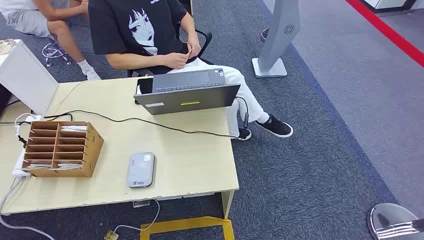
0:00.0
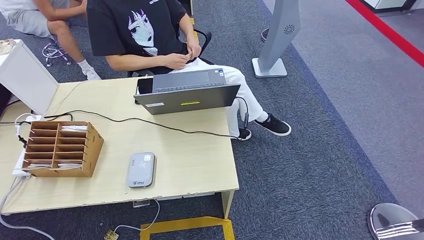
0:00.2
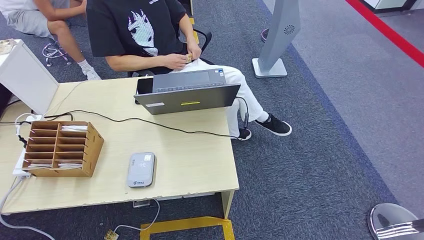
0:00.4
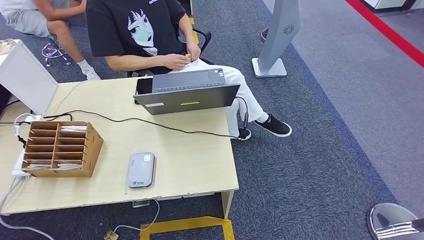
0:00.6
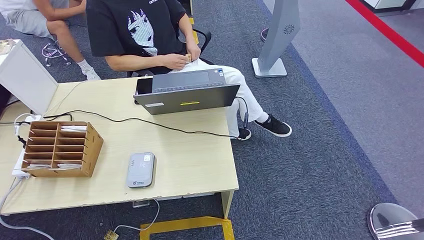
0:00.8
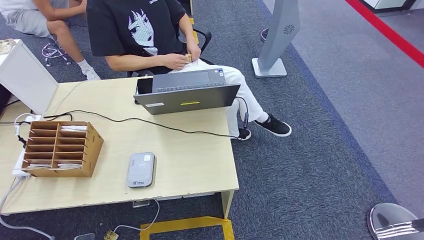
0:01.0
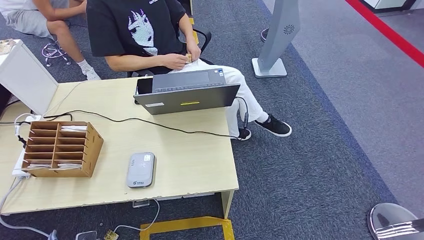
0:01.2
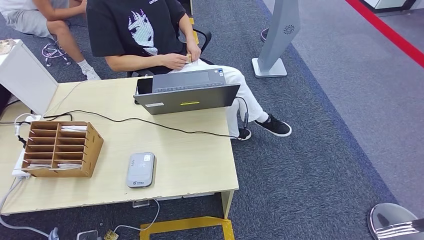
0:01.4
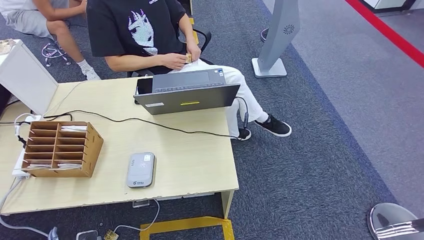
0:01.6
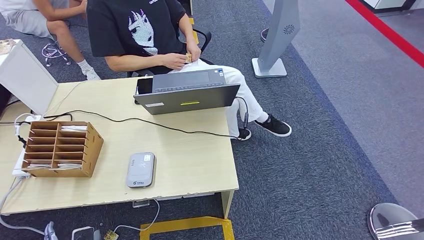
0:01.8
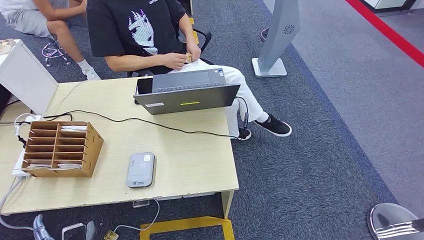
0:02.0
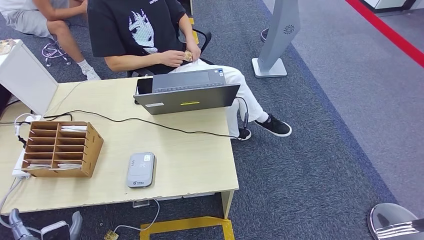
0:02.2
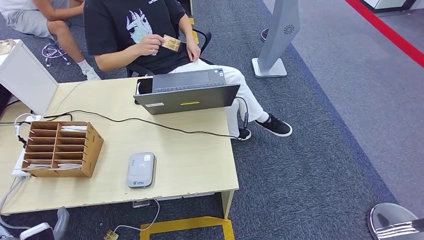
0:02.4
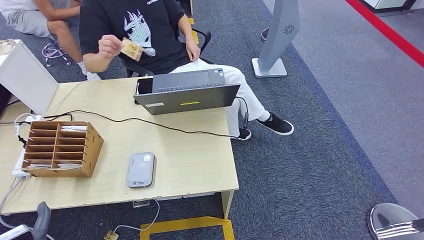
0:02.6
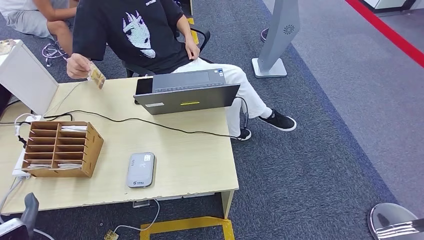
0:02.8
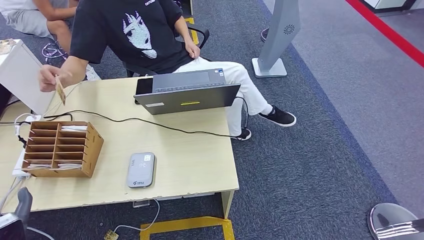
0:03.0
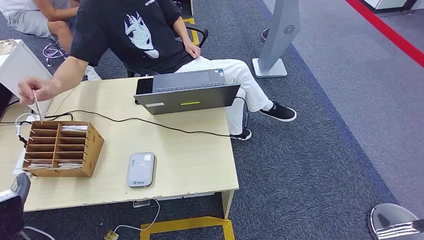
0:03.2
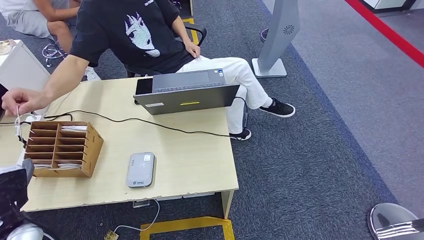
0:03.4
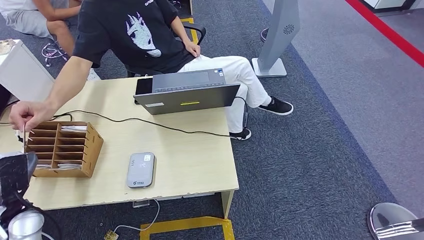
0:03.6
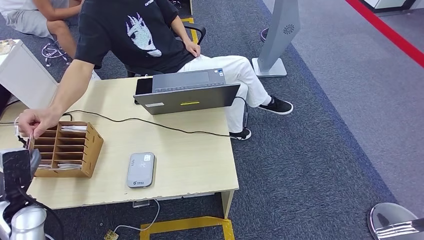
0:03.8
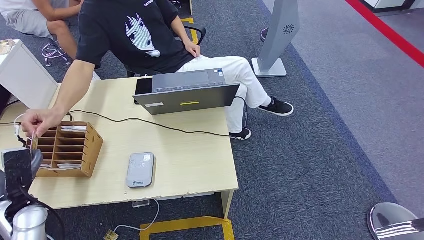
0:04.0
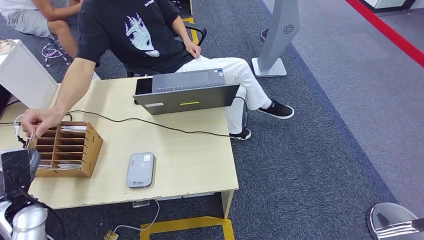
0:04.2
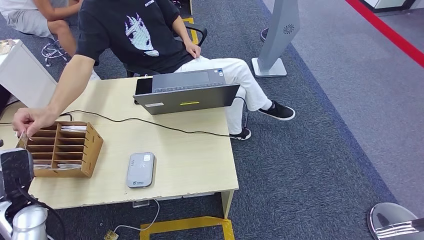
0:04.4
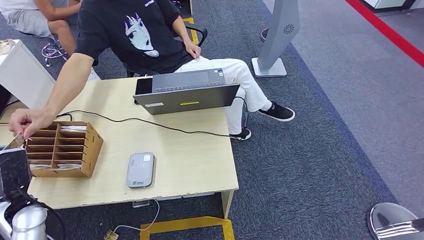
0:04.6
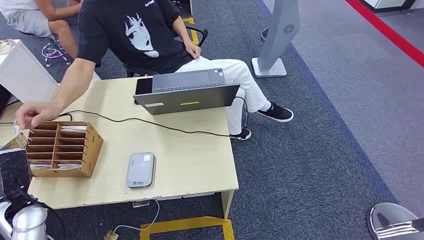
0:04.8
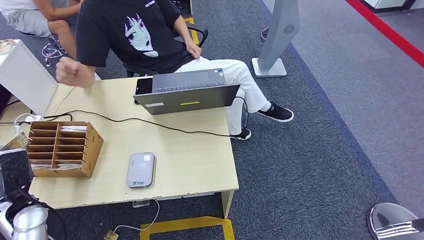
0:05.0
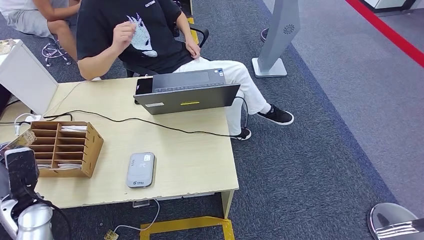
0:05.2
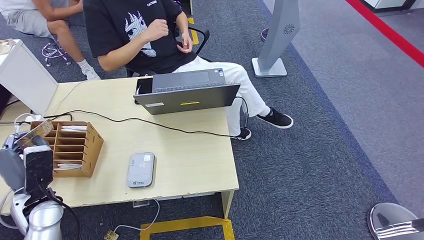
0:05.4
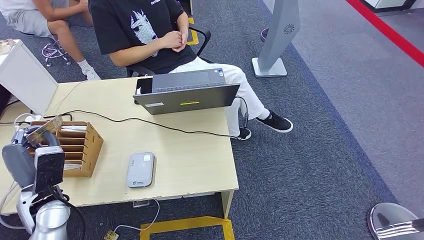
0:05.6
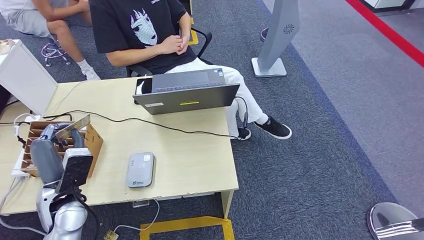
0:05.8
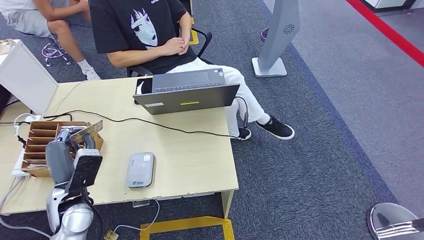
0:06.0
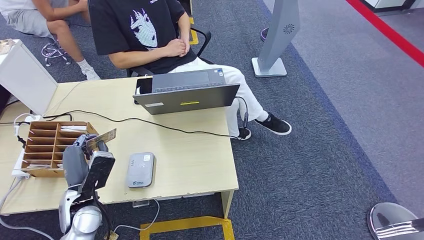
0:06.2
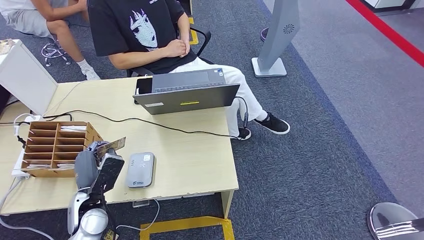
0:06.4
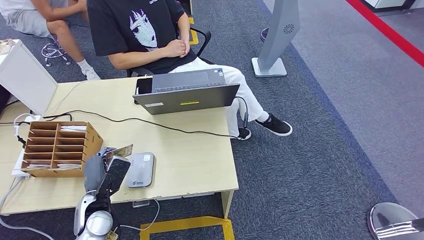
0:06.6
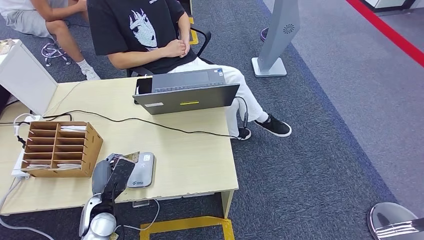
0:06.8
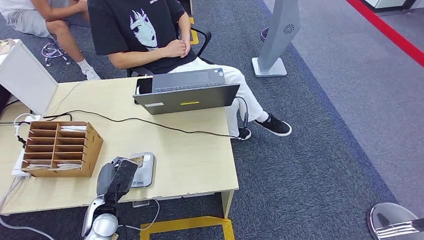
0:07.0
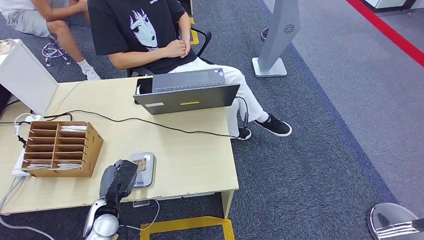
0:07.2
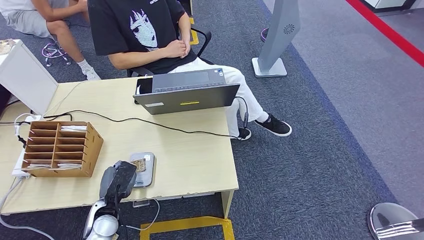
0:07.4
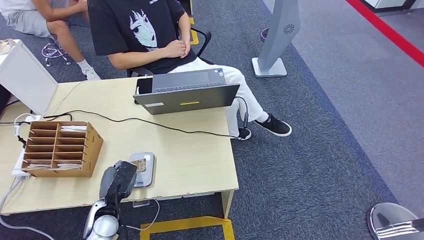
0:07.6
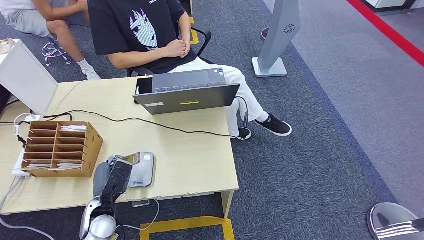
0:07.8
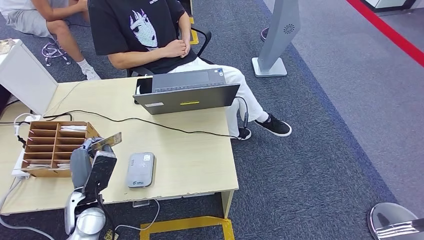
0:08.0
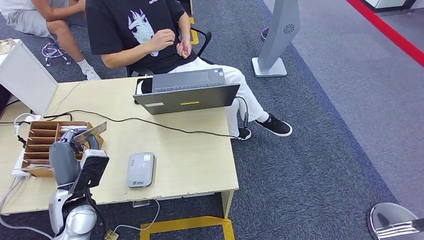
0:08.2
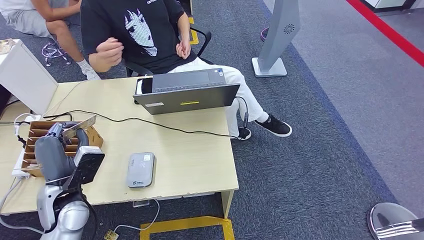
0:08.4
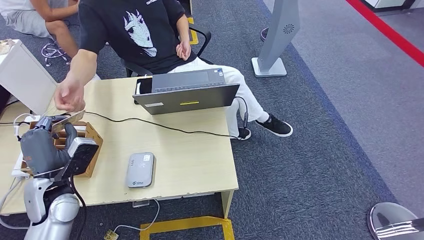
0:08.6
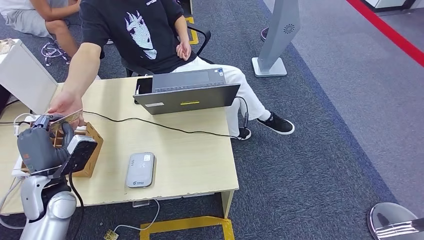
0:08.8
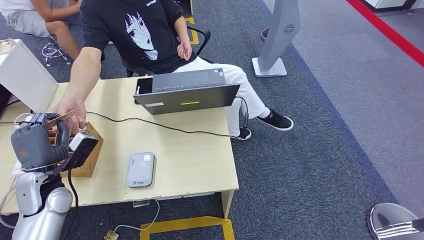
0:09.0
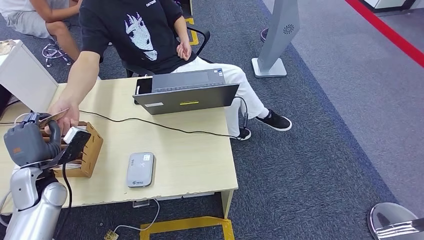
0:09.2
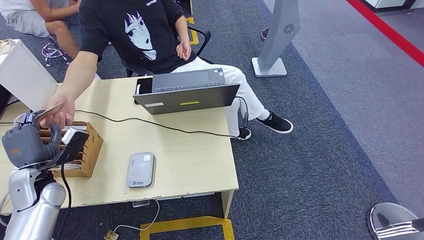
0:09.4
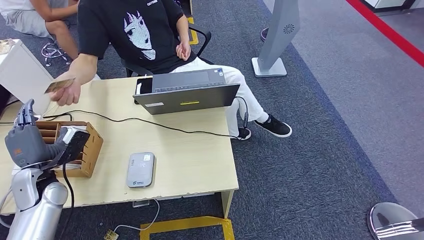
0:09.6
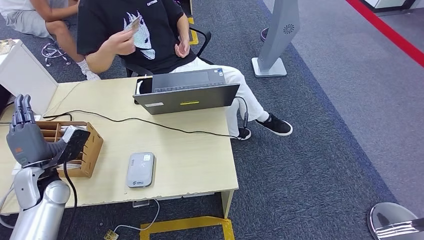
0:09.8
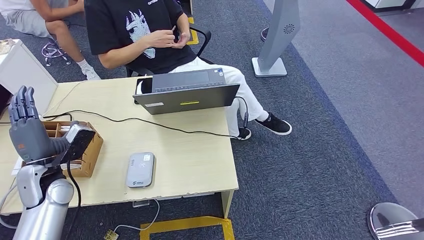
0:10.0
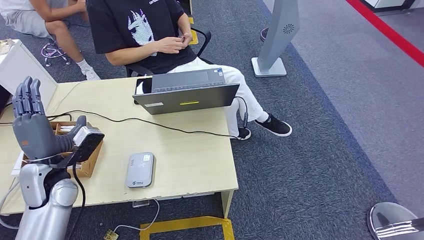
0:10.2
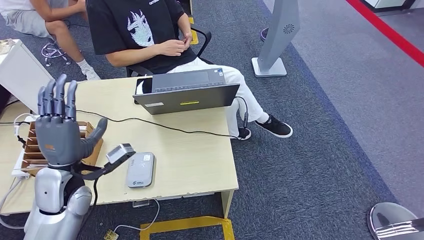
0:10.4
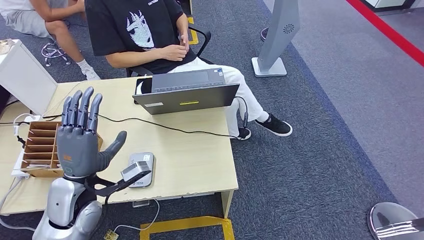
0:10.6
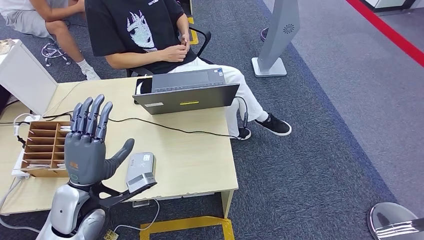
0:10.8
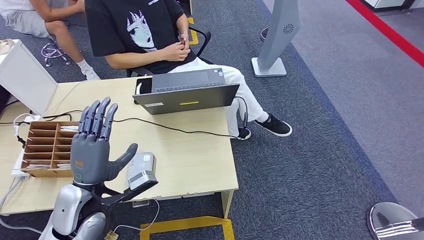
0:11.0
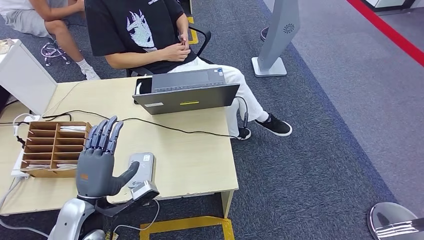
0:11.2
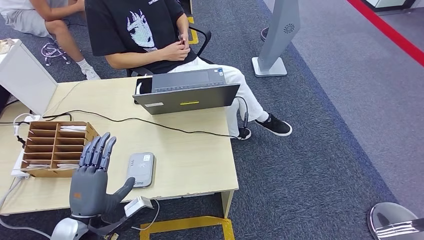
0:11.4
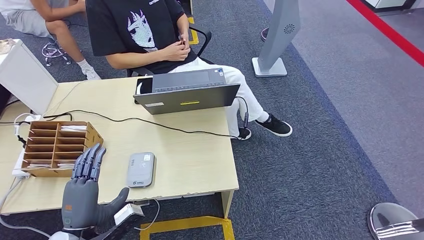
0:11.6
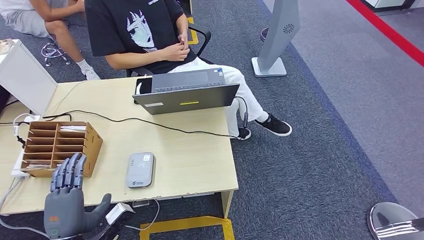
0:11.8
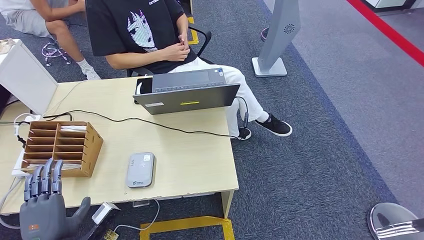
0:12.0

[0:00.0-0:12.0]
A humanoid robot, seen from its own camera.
Step, 0:00.0 to 0:05.8: Take the ID card from the person's hand.
Step, 0:06.0 to 0:07.0: Place the ID card on the card reader.
Step, 0:07.2 to 0:09.6: Hand the ID card to the person.
0:01.6 to 0:03.0: The left hand is displaced upward, forward and to the left by some 20 cm.
0:03.0 to 0:04.4: The left hand shifts approximately 15 cm forward and to the left.
0:04.4 to 0:06.0: The left hand is displaced to the right by approximately 15 cm.
0:06.0 to 0:07.6: The left hand goes some 10 cm downward.
0:07.6 to 0:09.0: The left hand is displaced upward, to the left and forward by roughly 15 cm.
0:09.0 to 0:10.4: The left hand is displaced to the right by approximately 5 cm.
0:10.4 to 0:12.0: The left hand moves backward and downward, about 20 cm.

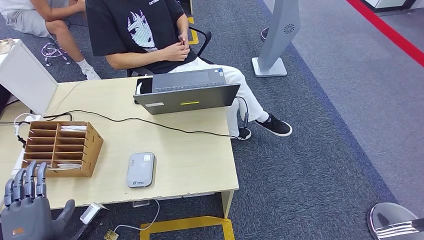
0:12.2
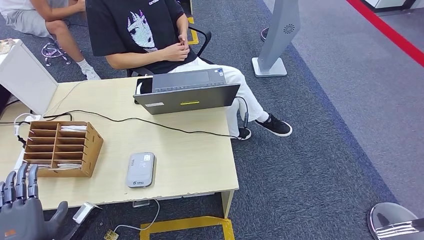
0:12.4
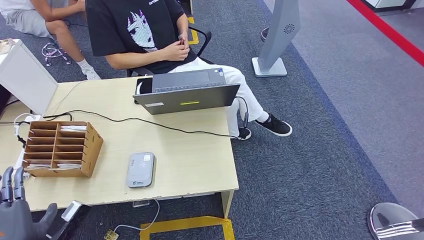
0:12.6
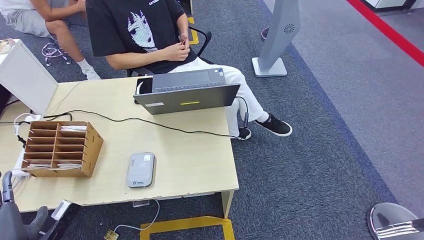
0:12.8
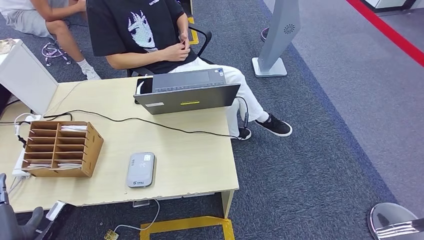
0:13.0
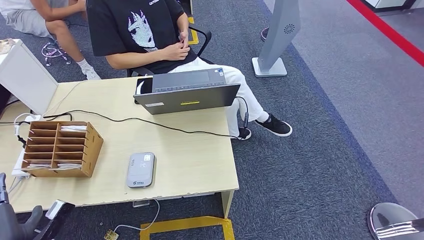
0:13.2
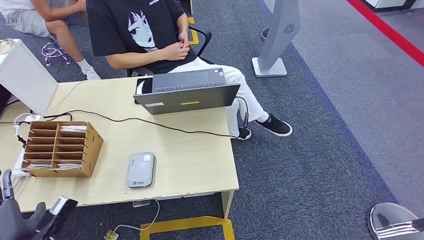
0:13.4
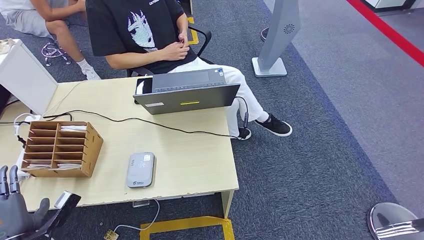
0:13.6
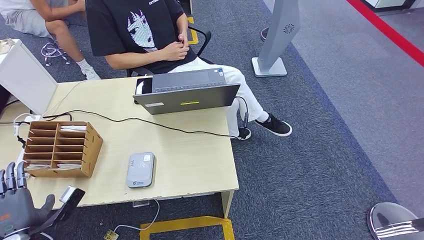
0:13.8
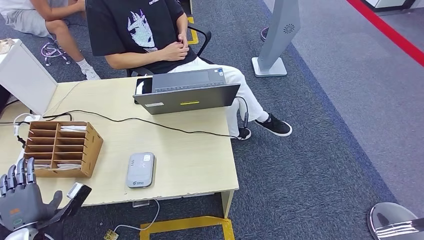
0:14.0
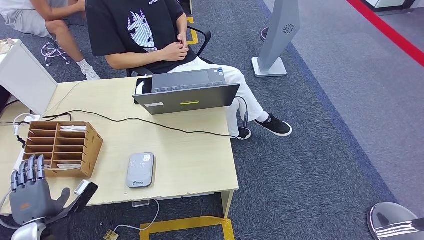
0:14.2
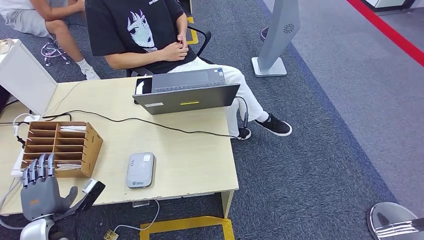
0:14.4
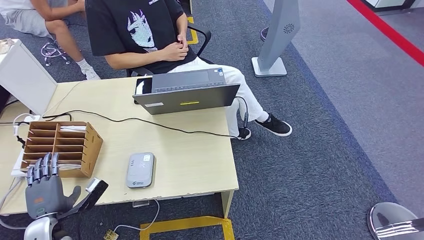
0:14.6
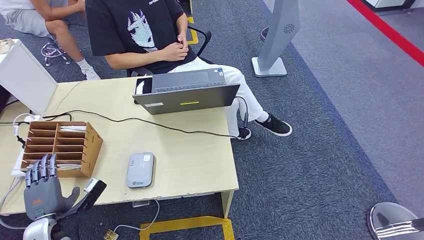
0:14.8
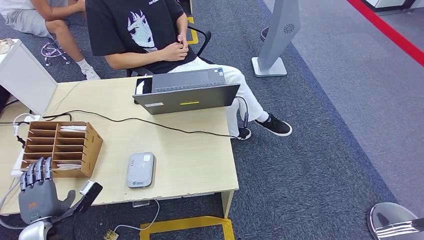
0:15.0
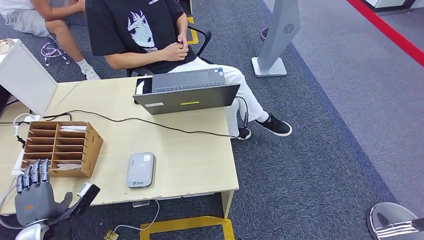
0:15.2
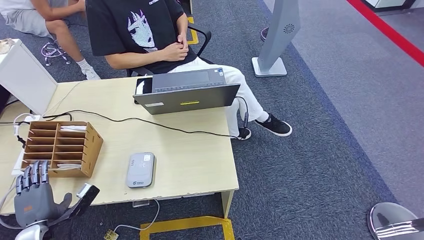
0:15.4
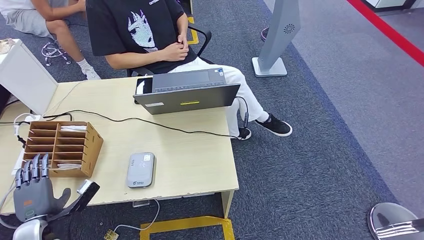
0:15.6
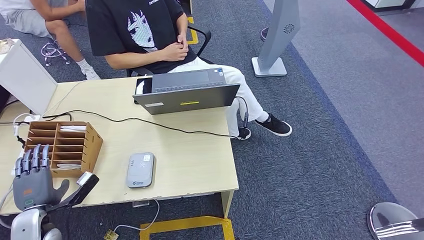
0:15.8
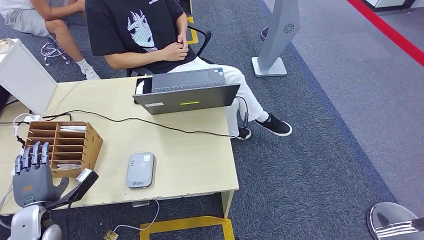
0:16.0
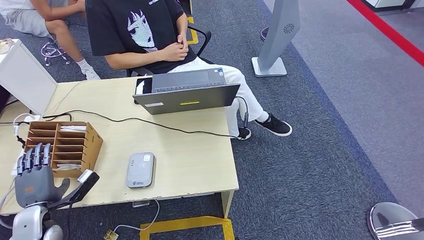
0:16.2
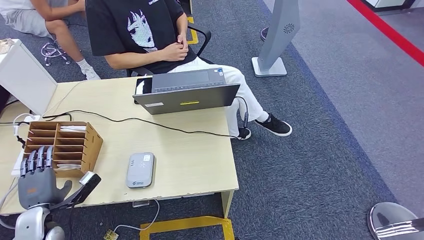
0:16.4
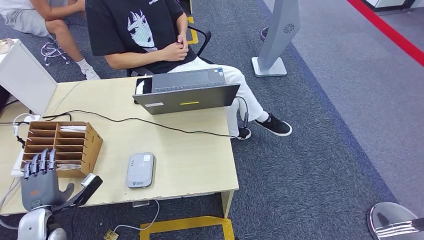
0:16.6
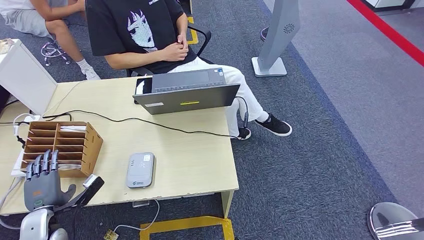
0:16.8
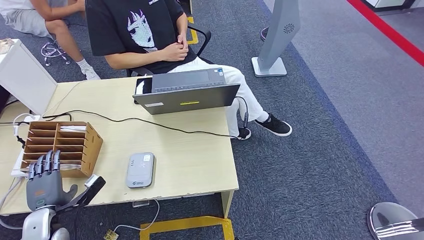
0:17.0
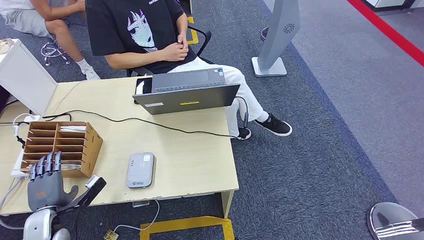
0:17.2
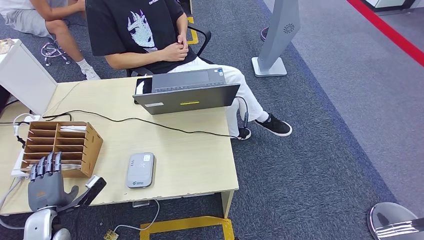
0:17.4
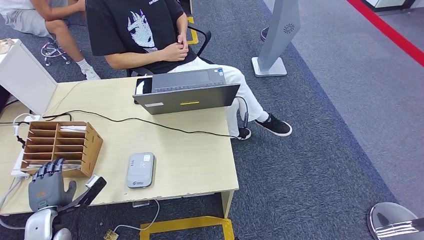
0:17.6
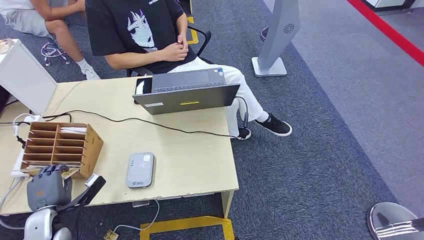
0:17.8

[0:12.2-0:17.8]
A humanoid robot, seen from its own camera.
0:12.2 to 0:13.6: The left hand is displaced to the left by approximately 10 cm.
0:13.6 to 0:15.0: The left hand shifts by some 5 cm.
0:15.0 to 0:17.8: The hands make only small movements.
